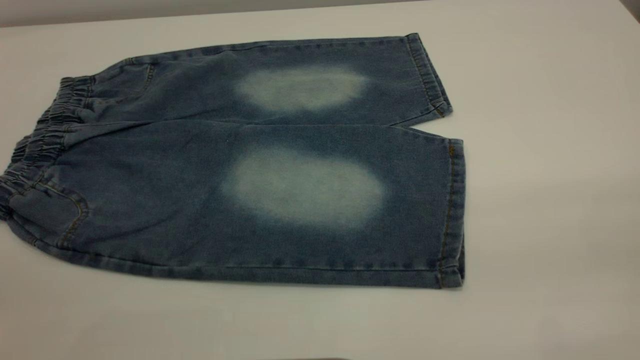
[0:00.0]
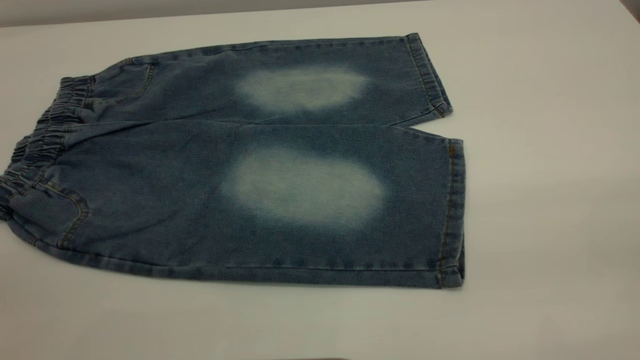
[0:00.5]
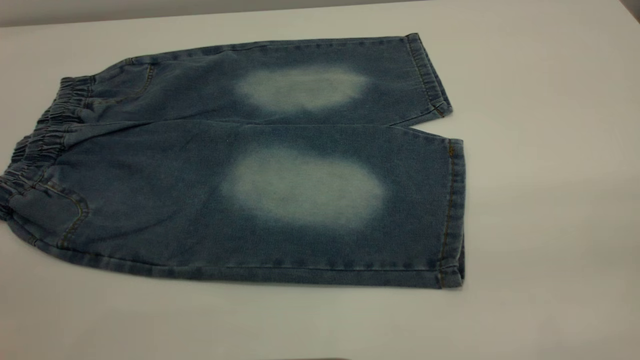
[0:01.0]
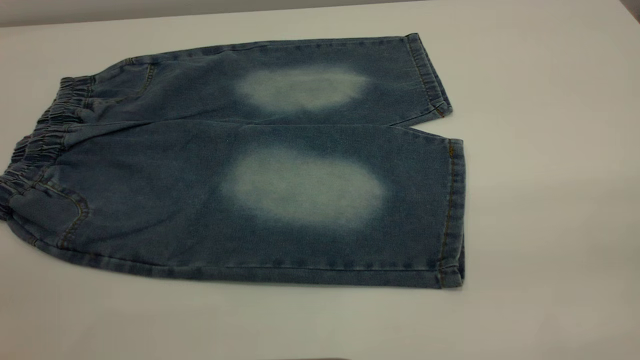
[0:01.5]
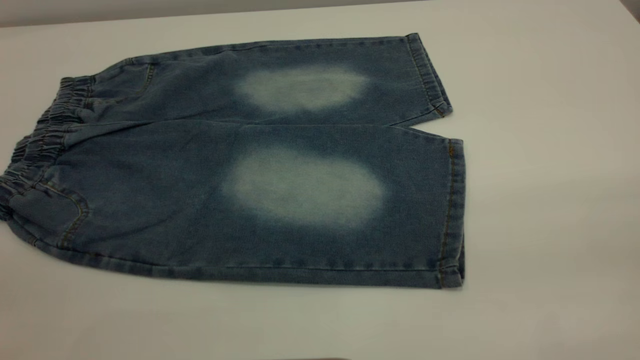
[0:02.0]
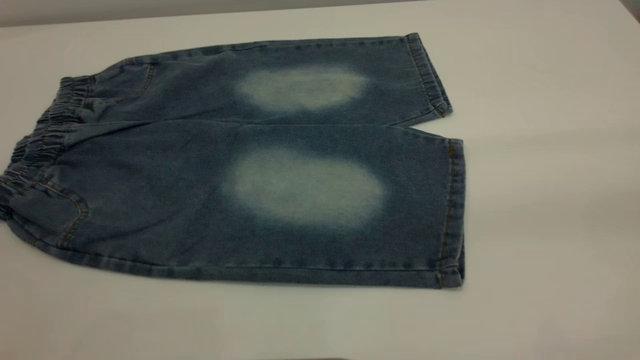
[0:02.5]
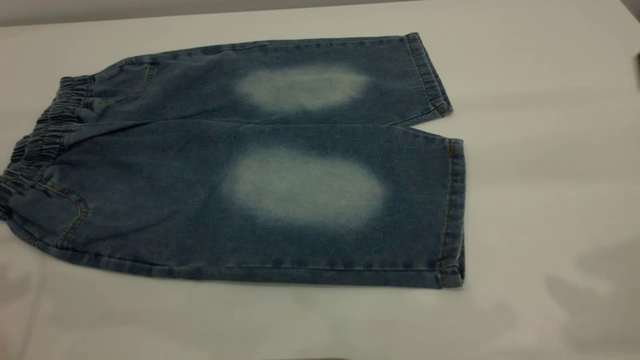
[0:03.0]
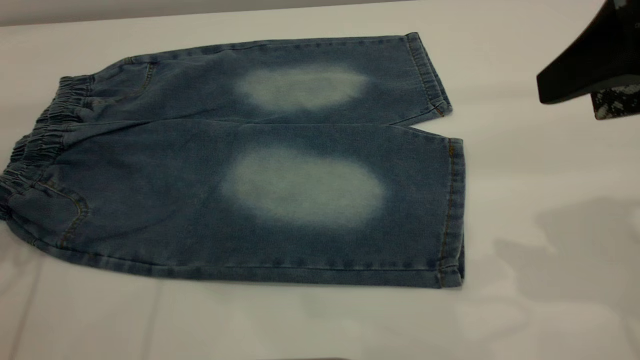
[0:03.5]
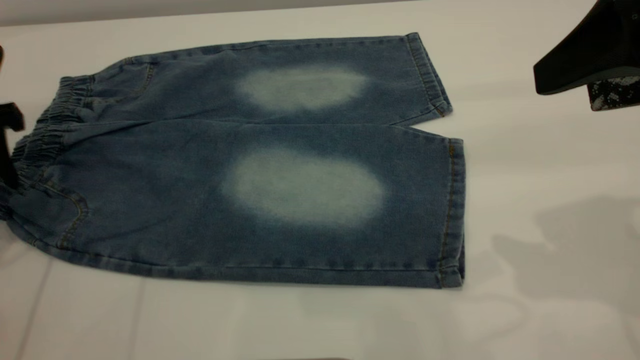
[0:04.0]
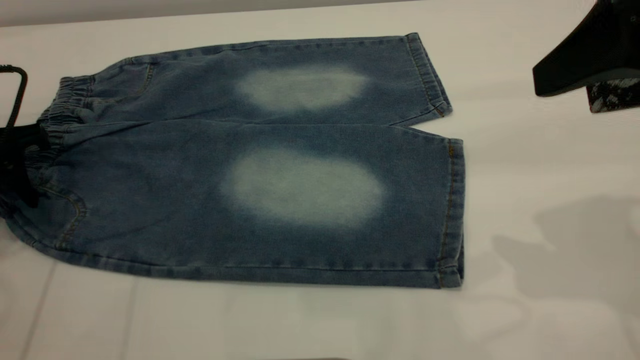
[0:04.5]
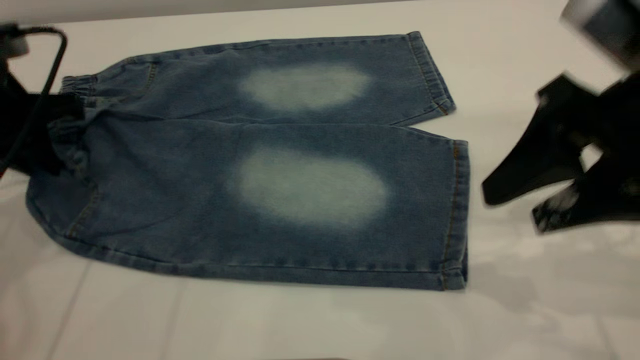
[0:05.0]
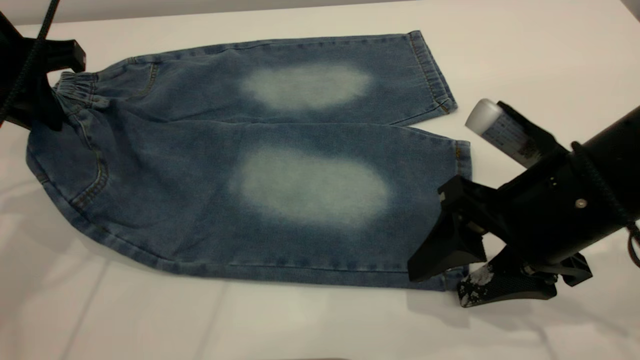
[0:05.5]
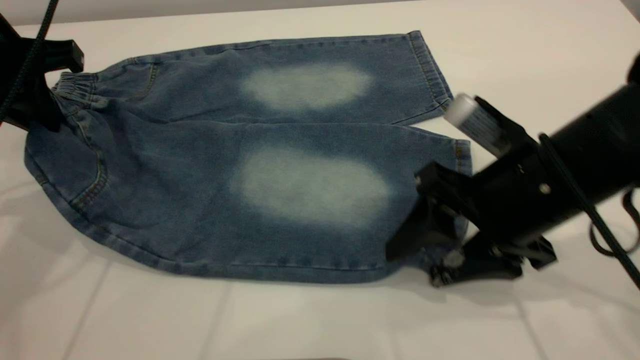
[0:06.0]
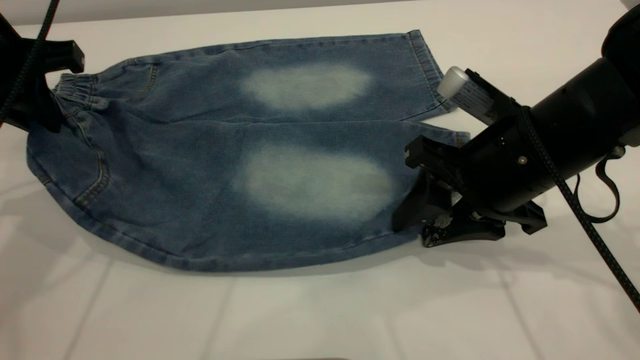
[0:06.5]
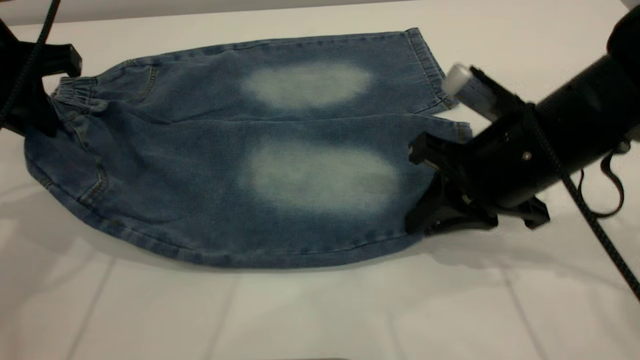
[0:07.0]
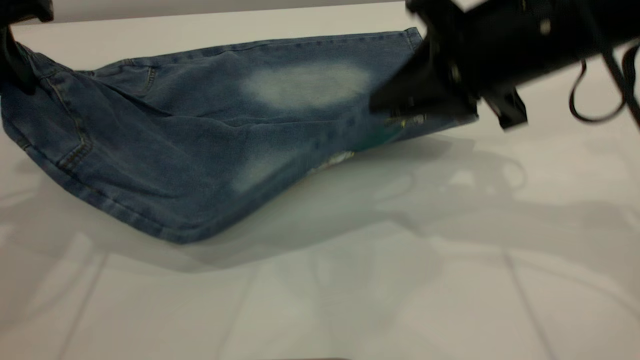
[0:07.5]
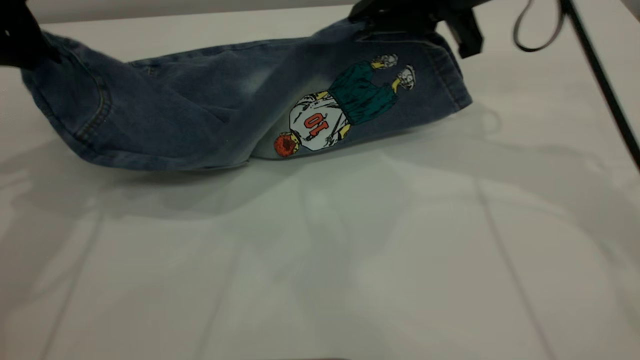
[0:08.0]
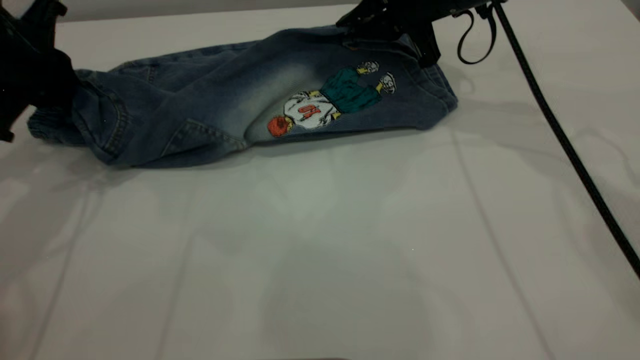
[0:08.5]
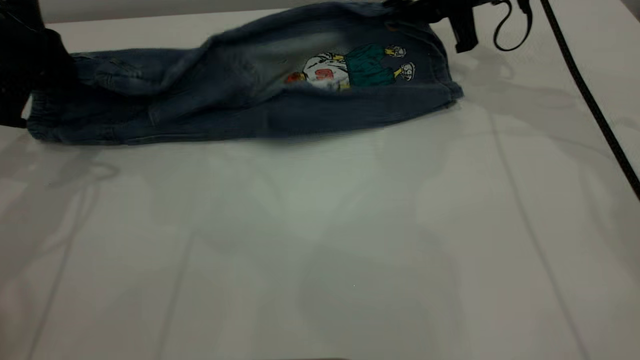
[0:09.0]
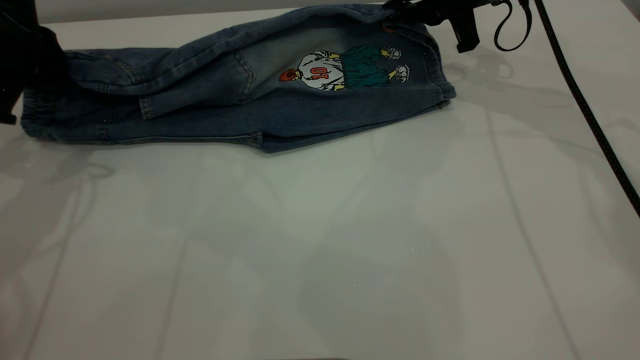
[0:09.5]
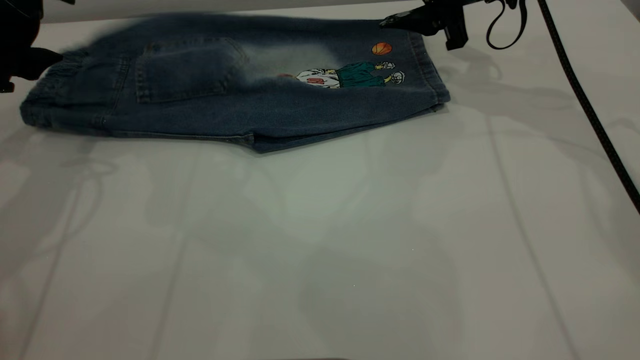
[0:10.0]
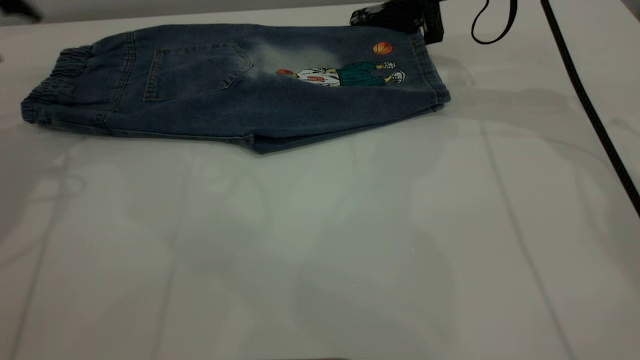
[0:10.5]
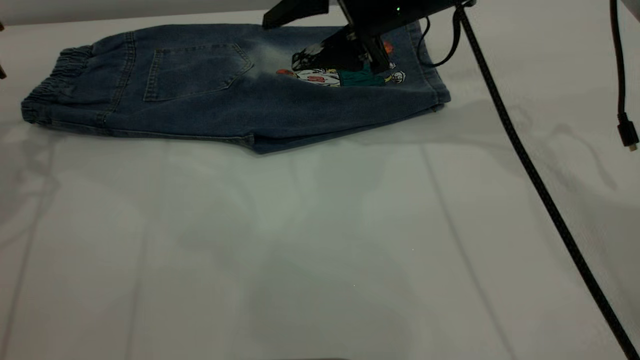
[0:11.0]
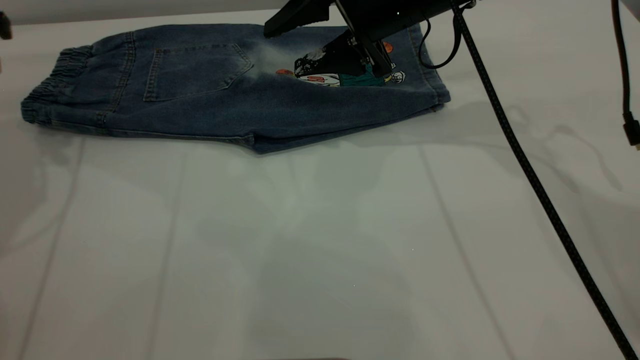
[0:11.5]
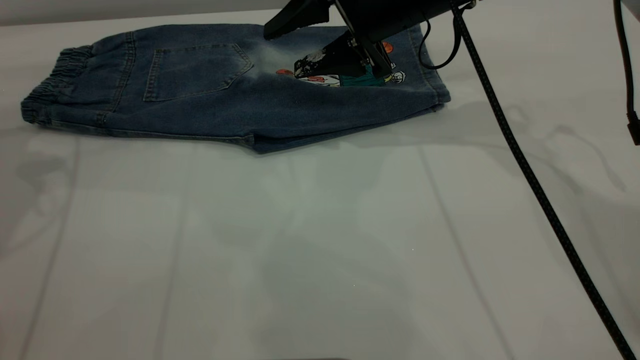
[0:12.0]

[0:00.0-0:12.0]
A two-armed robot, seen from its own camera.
Step, 0:00.0 to 0:10.5: Fold the bottom of the pants upward.
0:00.0 to 0:02.0: The two grippers keep their place.
0:02.0 to 0:04.0: The left gripper goes about 35 cm forward and downward. Meanwhile the right gripper travels forward by some 20 cm.
0:04.0 to 0:06.0: The right gripper shifts approximately 15 cm downward and to the left, while the left gripper shifts approximately 10 cm to the right and upward, and closes up.
0:06.0 to 0:08.0: The right gripper is displaced forward and upward by about 15 cm, and closes up.
0:08.0 to 0:10.0: The right gripper travels forward and downward by some 10 cm, and opens its fingers. The left gripper moves about 5 cm, and opens up.
0:10.0 to 0:12.0: The right gripper travels to the left by approximately 10 cm, while the left gripper ends up about 5 cm from where it was.

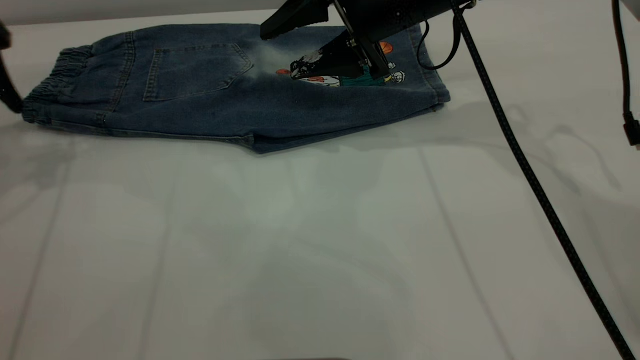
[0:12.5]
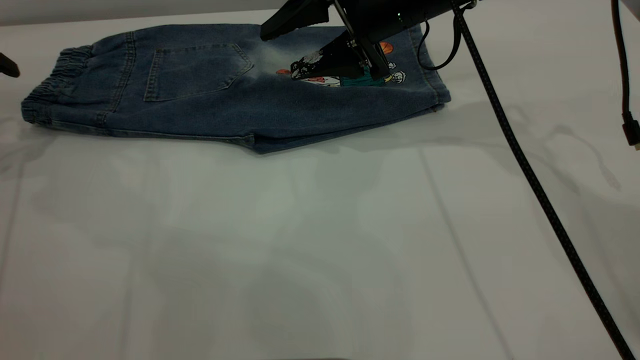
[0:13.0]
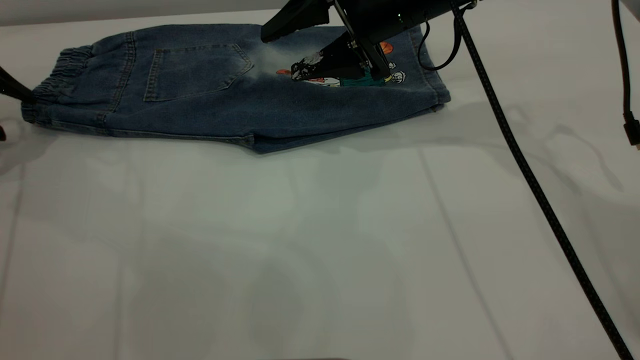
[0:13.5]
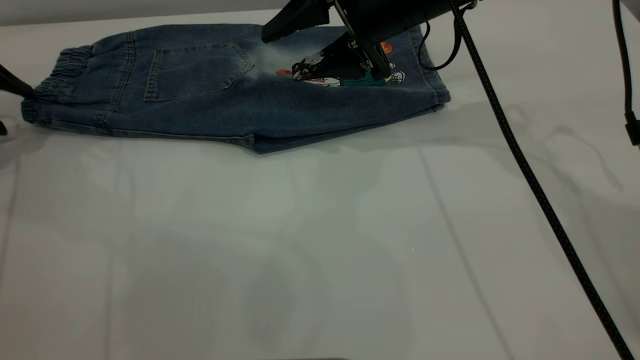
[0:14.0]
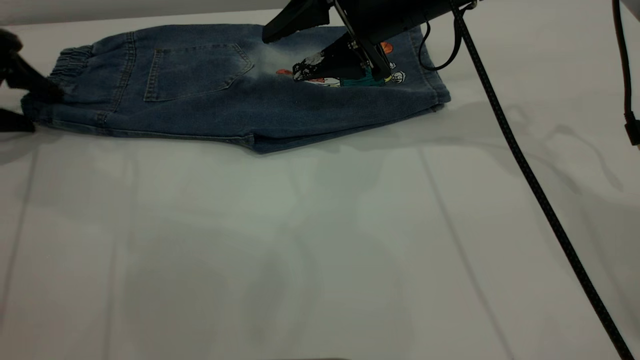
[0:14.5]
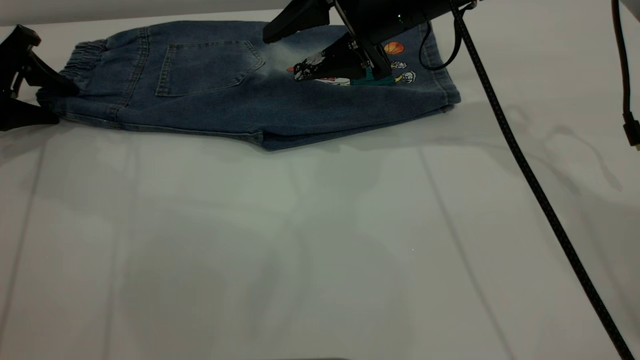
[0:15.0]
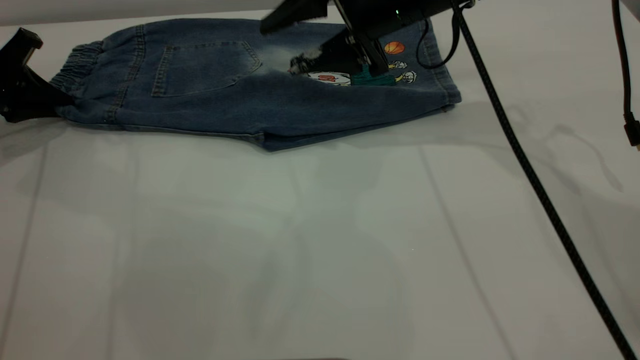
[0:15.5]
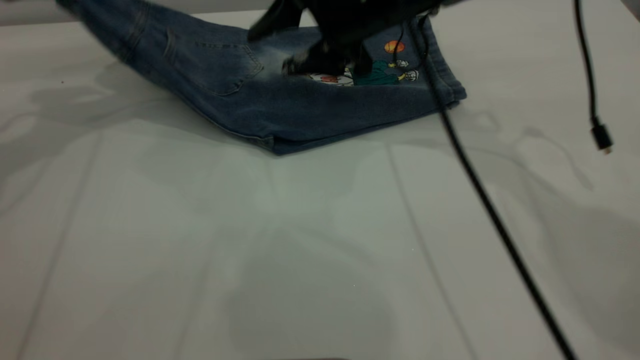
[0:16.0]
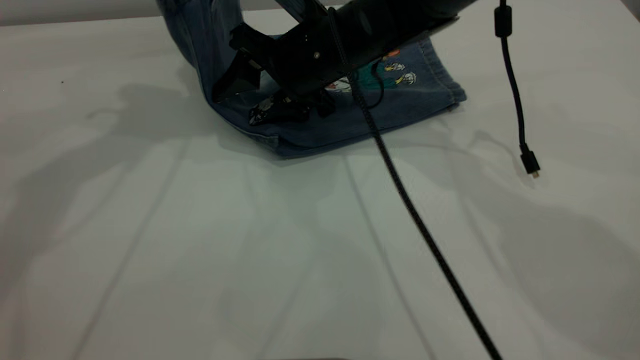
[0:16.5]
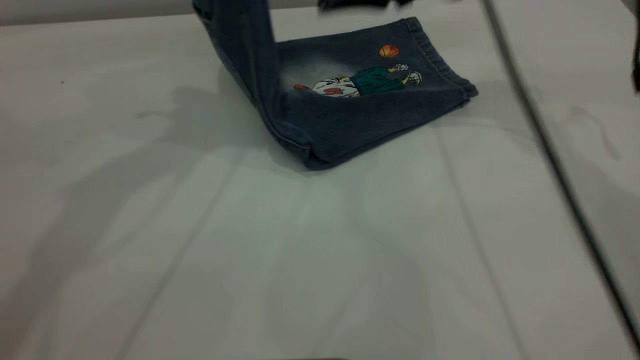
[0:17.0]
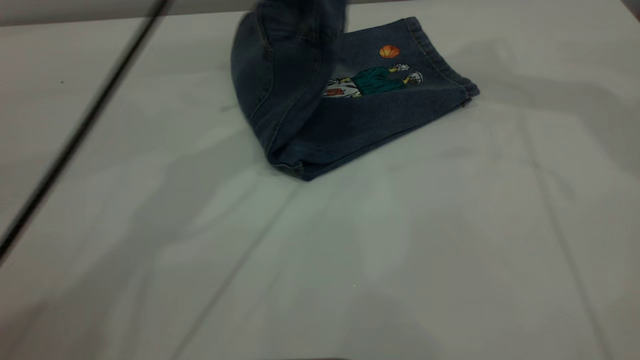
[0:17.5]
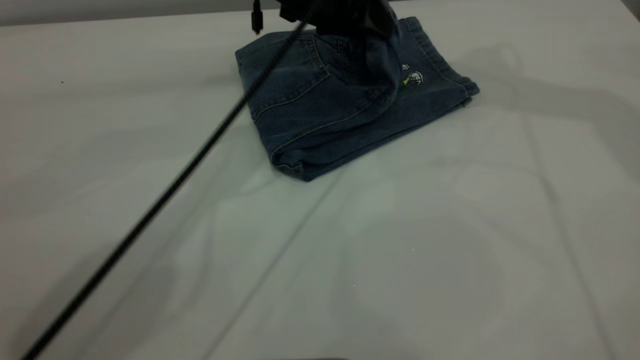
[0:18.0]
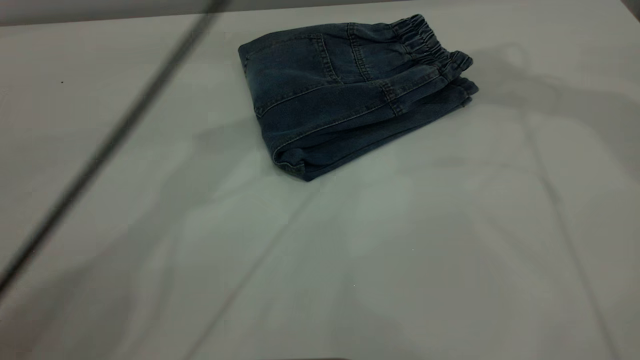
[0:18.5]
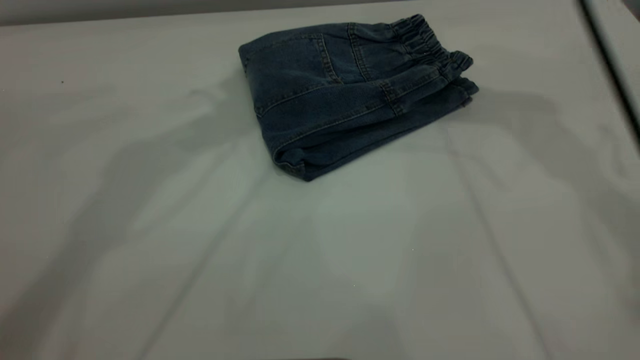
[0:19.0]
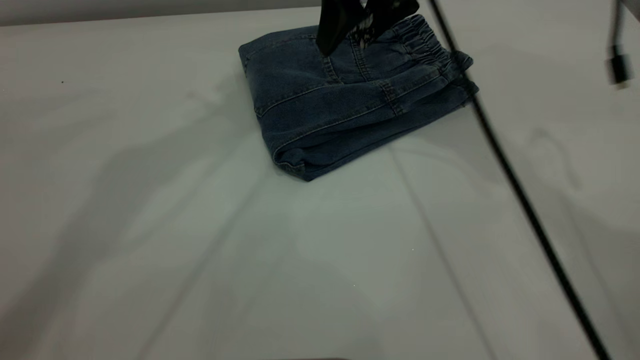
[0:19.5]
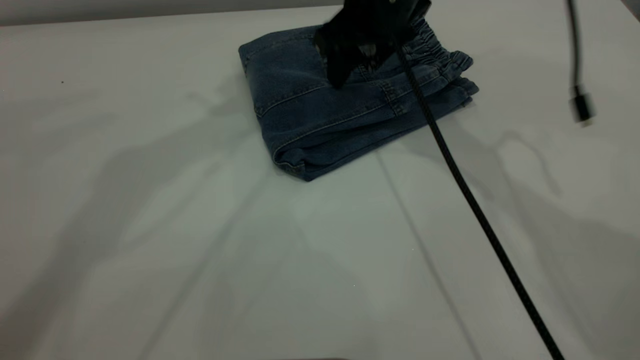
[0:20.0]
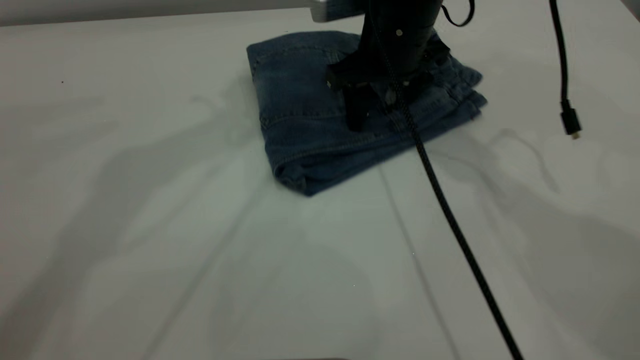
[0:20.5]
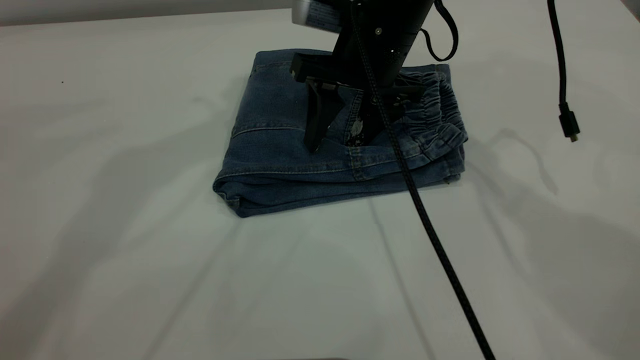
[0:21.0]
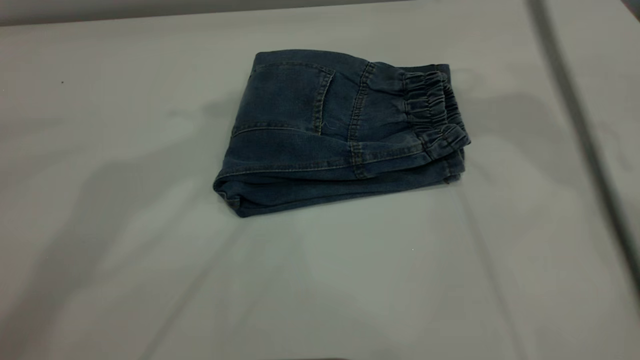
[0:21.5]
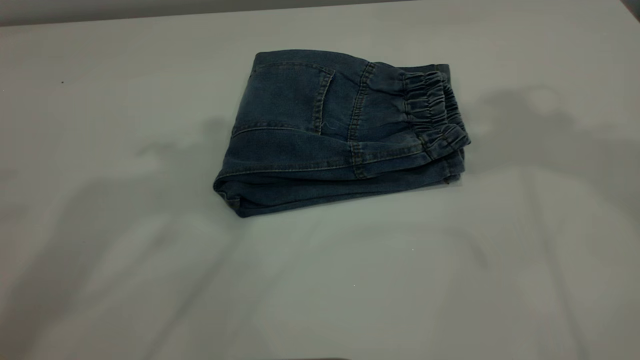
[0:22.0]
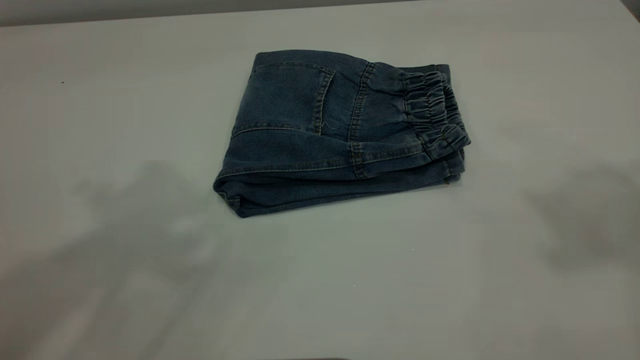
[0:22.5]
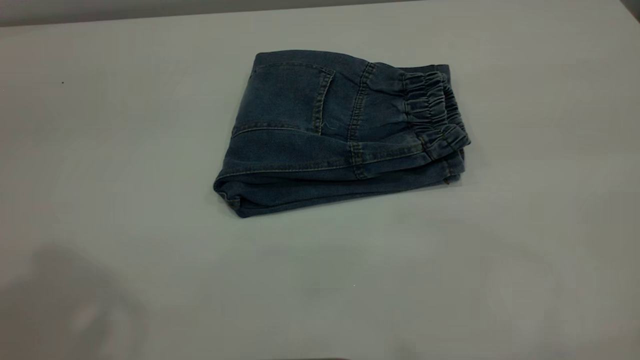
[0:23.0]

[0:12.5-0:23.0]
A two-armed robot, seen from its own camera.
Step, 0:12.5 to 0:18.5: Fold the pants from left to right.
0:12.5 to 0:14.5: The left gripper goes about 10 cm downward.
0:14.5 to 0:16.5: The left gripper heads upward and to the right, covering roughly 25 cm, and closes its fingers. The right gripper heads to the left, covering some 5 cm.
0:16.5 to 0:19.0: The left gripper shifts approximately 15 cm to the right and upward, and opens its fingers; the right gripper shifts some 20 cm upward and to the right.
0:19.0 to 0:21.0: The right gripper shifts some 15 cm downward and to the left.
0:21.0 to 0:23.0: The left gripper travels backward and to the left by some 25 cm, while the right gripper is displaced backward, upward and to the right by about 50 cm.
